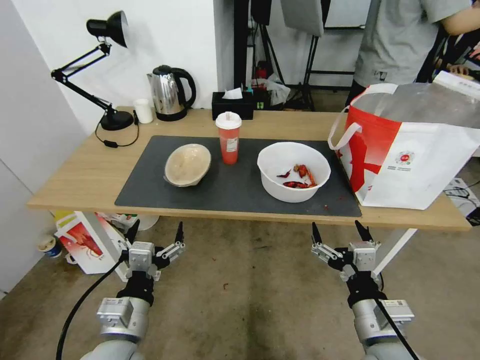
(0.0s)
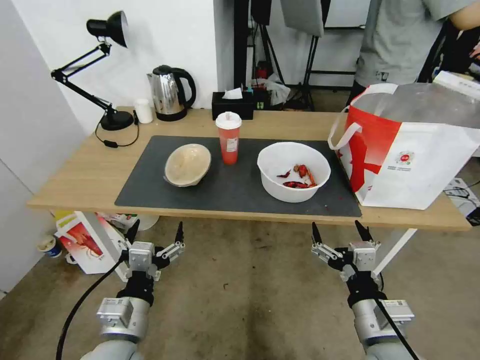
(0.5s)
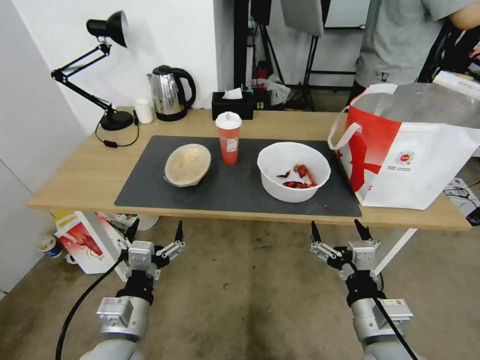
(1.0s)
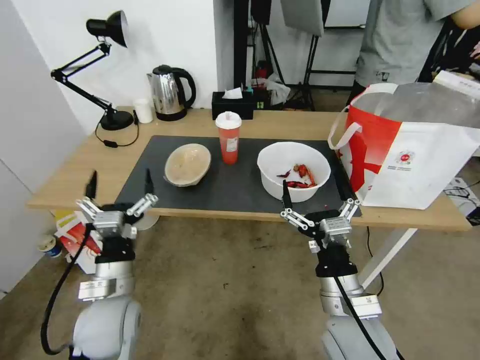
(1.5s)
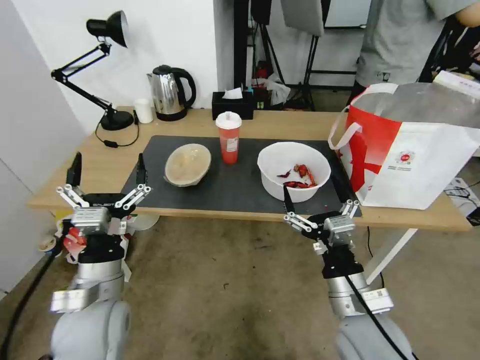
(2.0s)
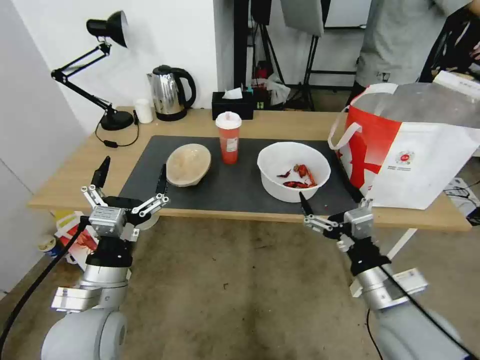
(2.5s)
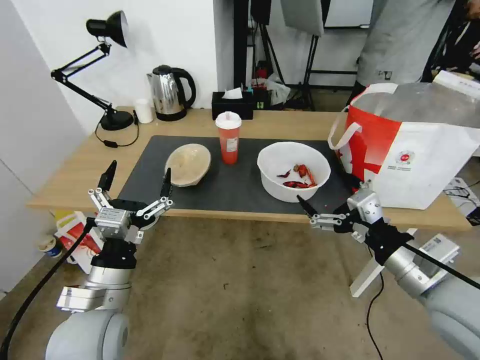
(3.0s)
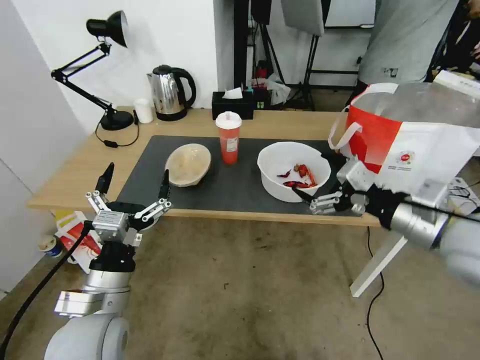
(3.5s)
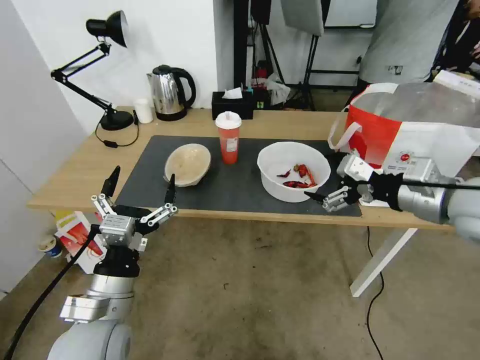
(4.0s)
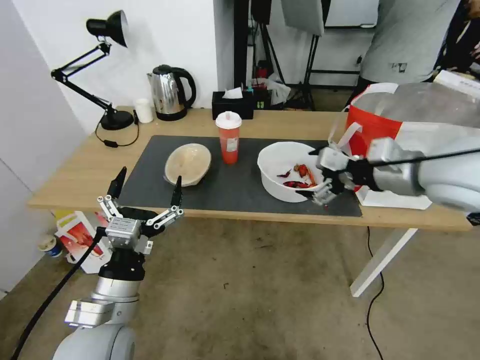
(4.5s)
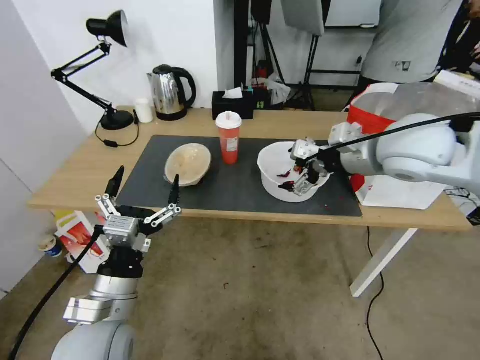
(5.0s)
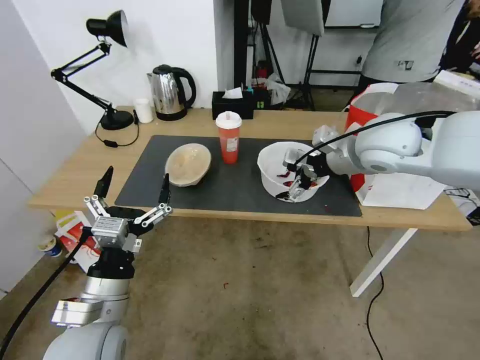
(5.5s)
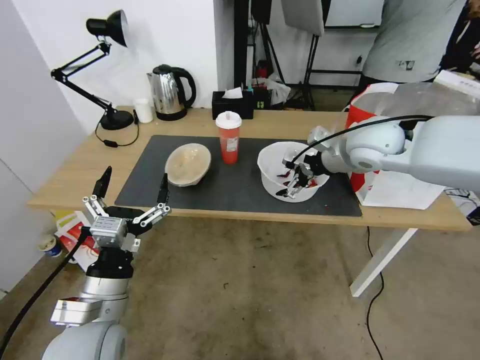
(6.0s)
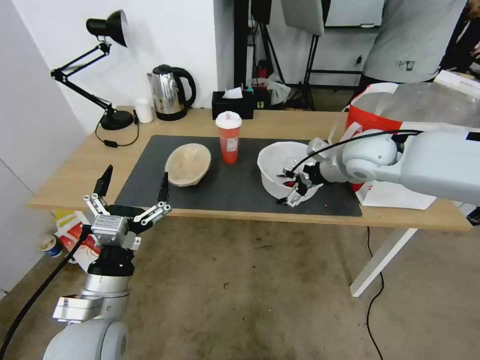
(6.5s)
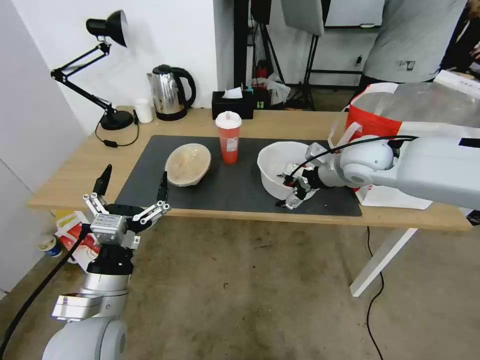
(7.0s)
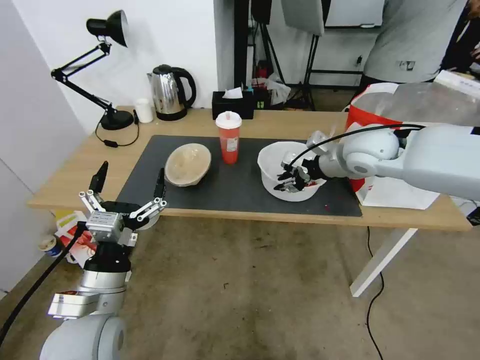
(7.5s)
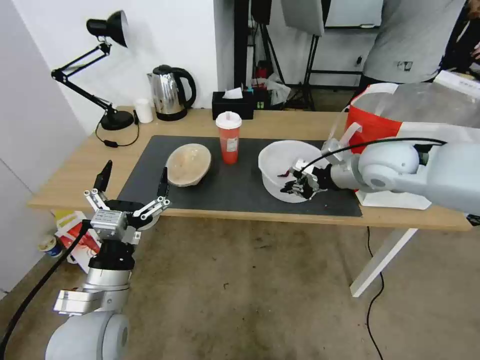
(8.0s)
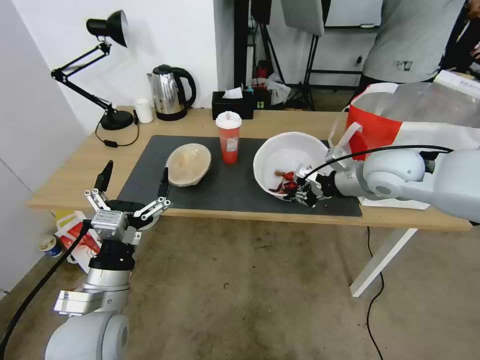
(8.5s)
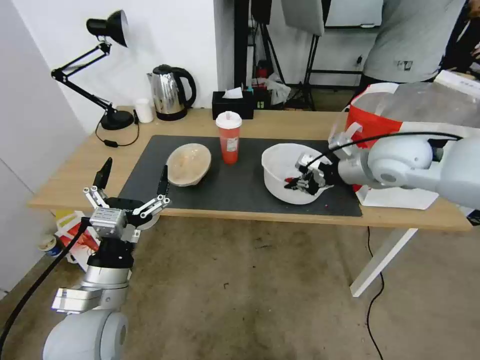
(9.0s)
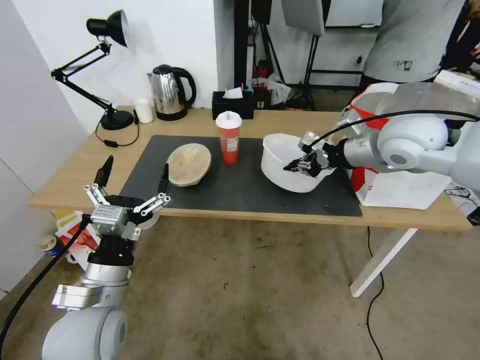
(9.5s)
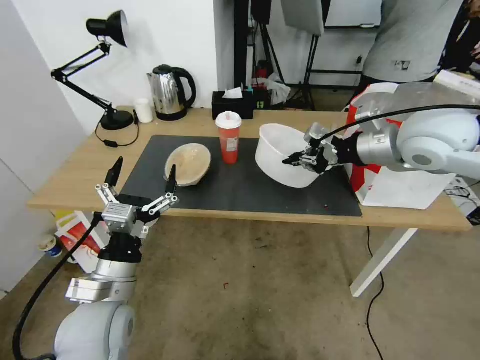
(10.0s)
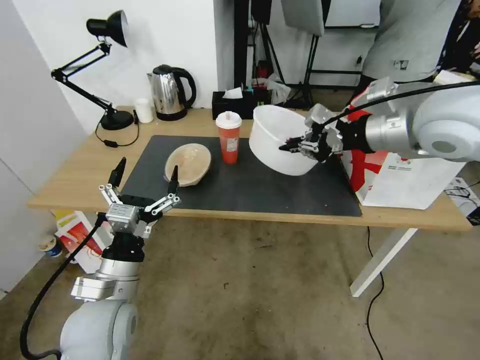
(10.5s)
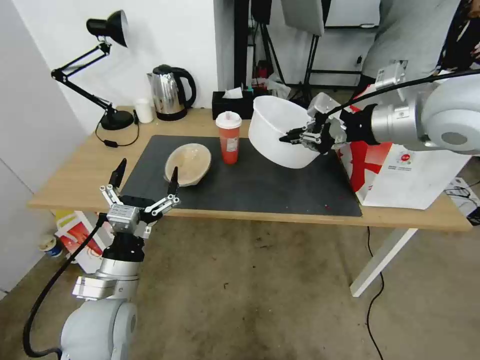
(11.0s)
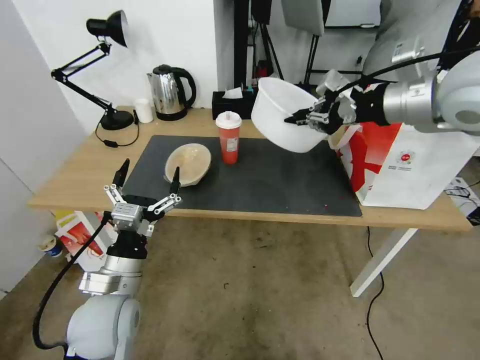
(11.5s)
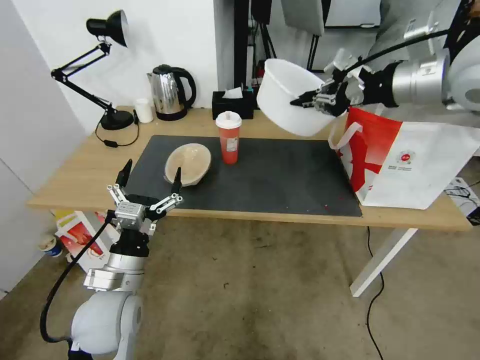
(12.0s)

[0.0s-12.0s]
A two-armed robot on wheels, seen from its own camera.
Task of the whole recording: Pick up the trash from the table and place it into the takeout bag.
2.0s to 4.0s: The right gripper shifts approximately 25 cm upward, to the right and forward.
4.0s to 6.0s: The right gripper shifts about 20 cm forward and to the left.
6.0s to 8.0s: The right gripper closes.
8.0s to 10.0s: The right gripper travels upward by roughly 10 cm.
10.0s to 12.0s: The right gripper goes about 10 cm upward.

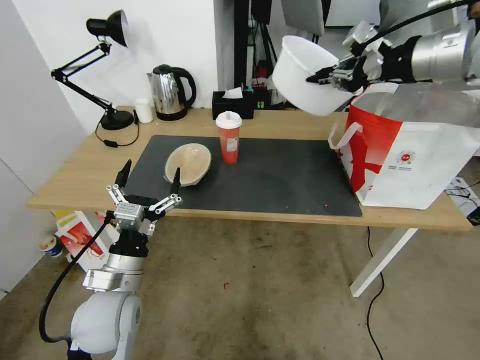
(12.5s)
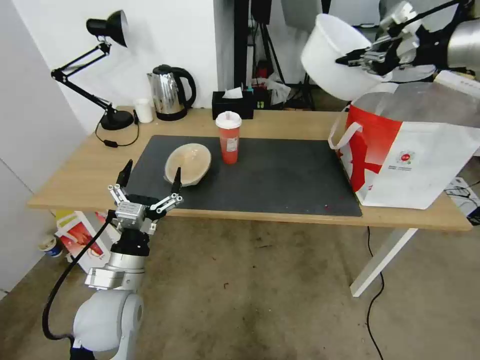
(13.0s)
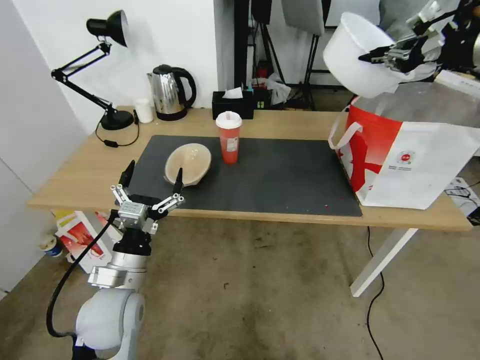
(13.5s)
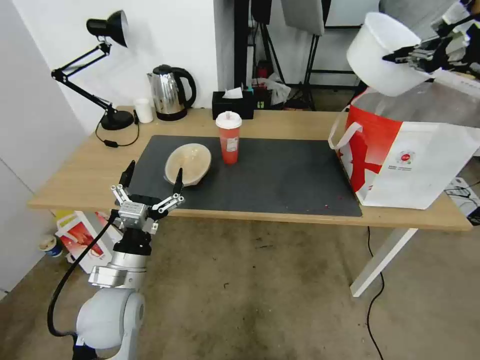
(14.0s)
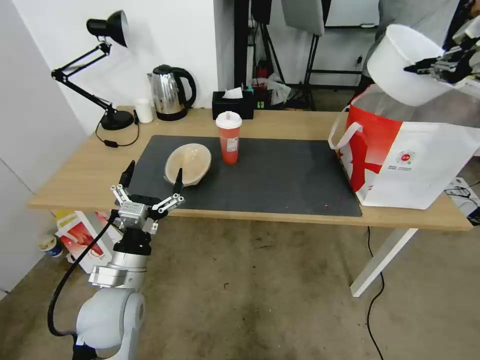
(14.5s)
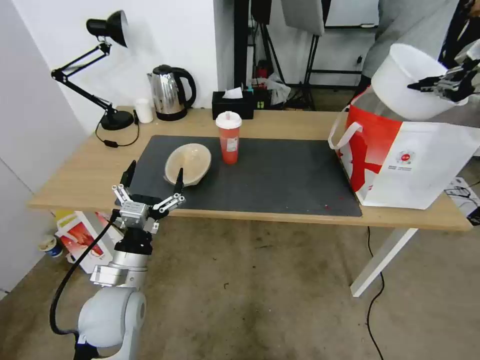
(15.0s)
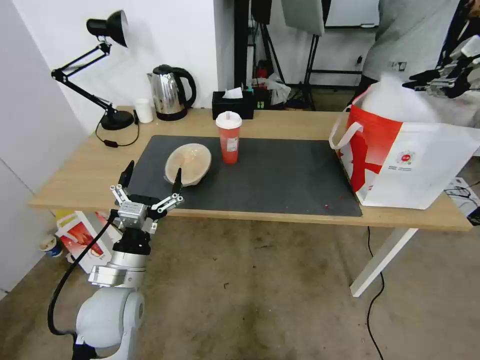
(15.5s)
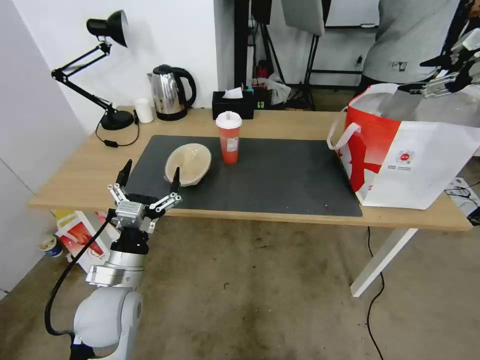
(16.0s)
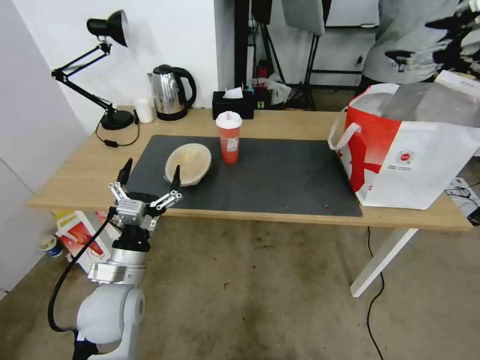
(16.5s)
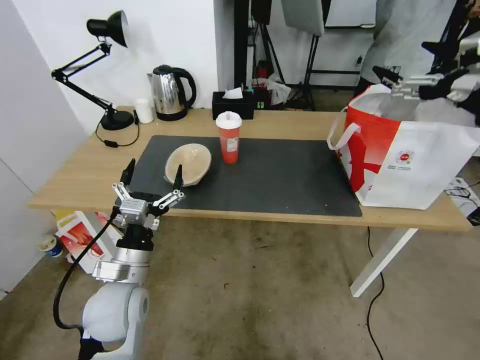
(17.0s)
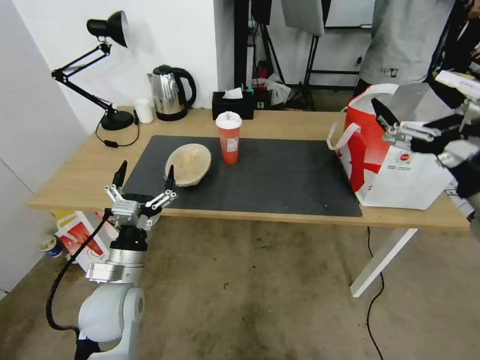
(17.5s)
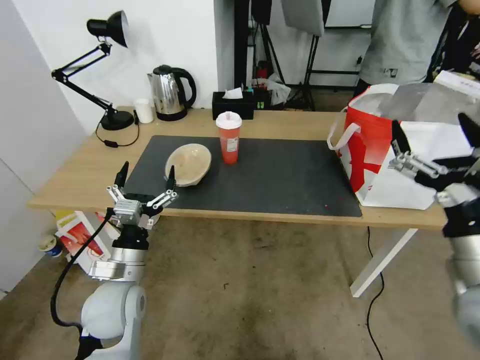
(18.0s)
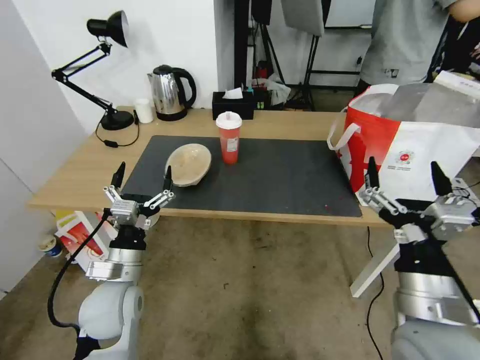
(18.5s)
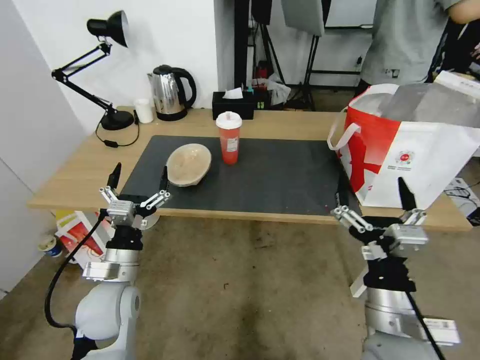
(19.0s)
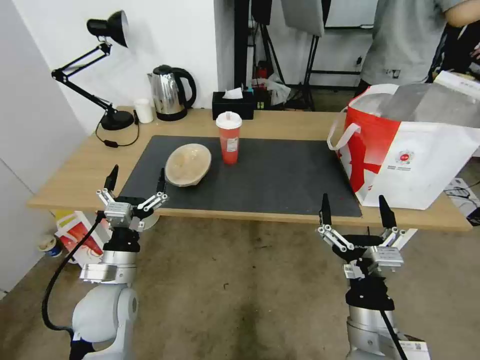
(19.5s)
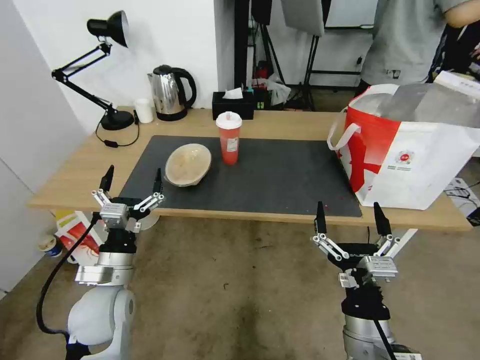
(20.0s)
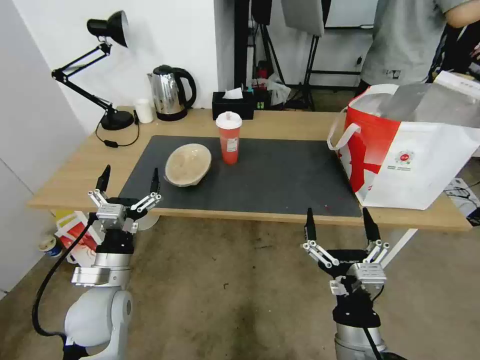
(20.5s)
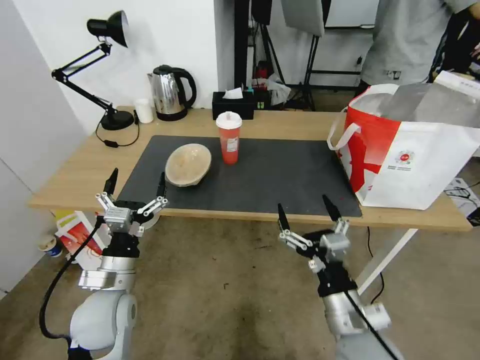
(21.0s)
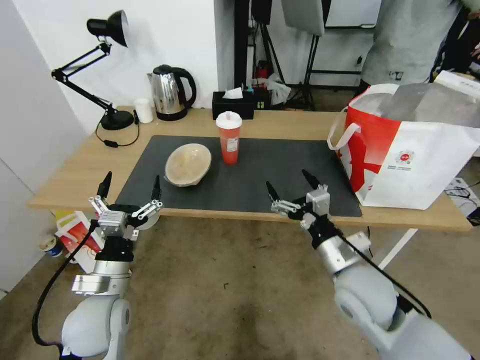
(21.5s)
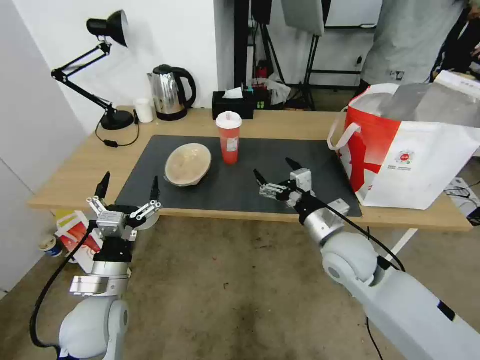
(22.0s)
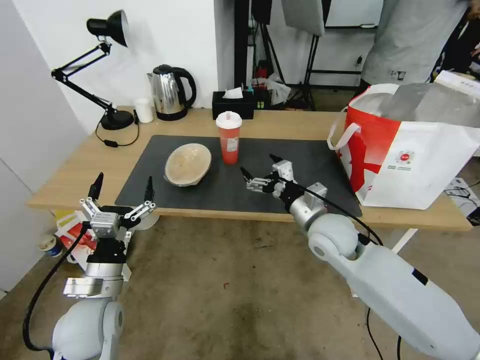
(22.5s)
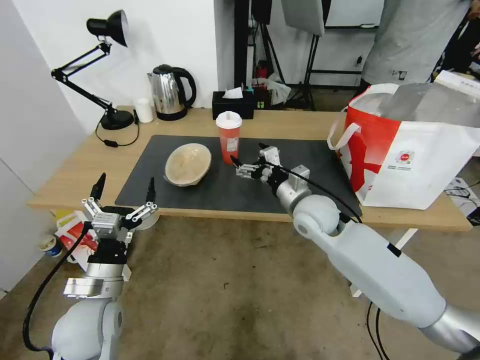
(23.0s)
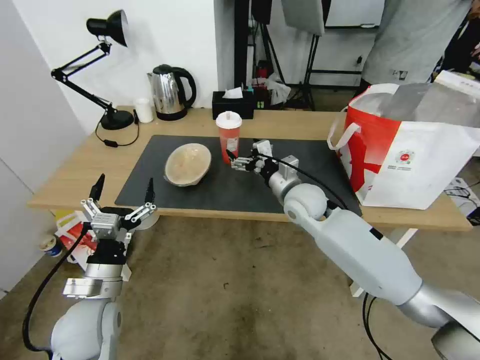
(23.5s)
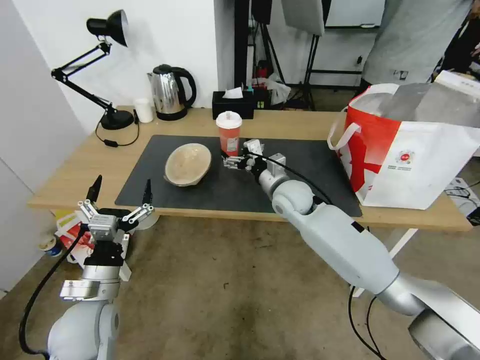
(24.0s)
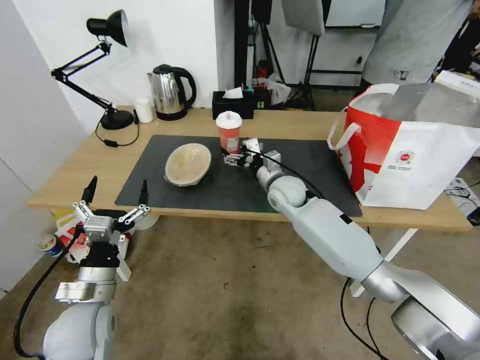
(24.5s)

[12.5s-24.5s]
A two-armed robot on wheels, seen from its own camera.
Task of the whole recording: Pick up the trash from the table and place it into the takeout bag.
12.5s to 14.5s: The right gripper moves to the right, some 20 cm.
14.5s to 16.5s: The right gripper opens up.
16.5s to 18.5s: The right gripper heads downward, backward and to the left, covering roughly 40 cm.
18.5s to 20.5s: The right gripper travels downward and to the left by roughly 10 cm.
20.5s to 22.5s: The right gripper heads forward, covering about 25 cm.
22.5s to 24.5s: The right gripper moves forward and to the left, approximately 15 cm.

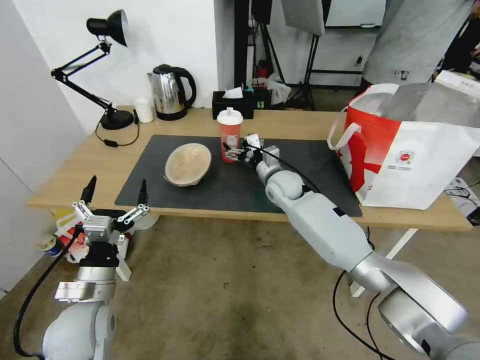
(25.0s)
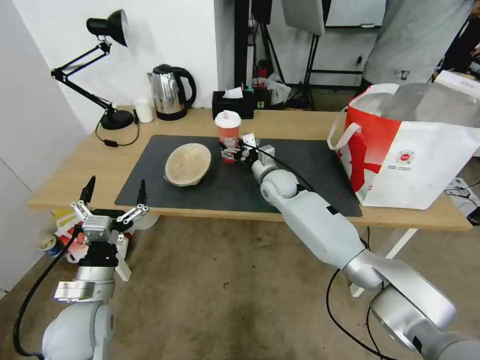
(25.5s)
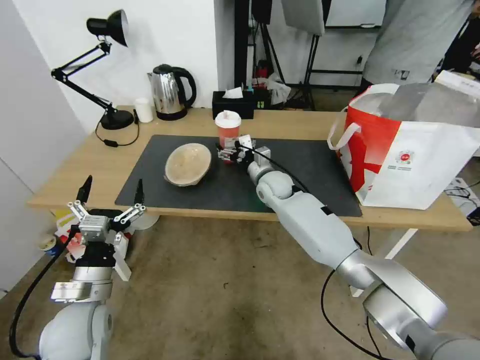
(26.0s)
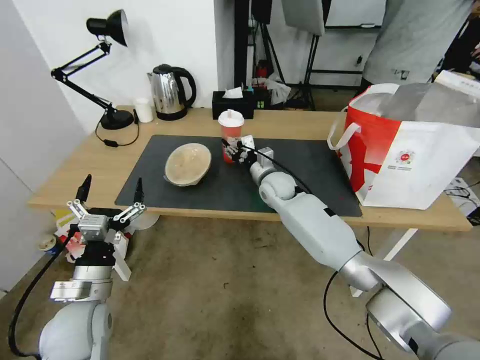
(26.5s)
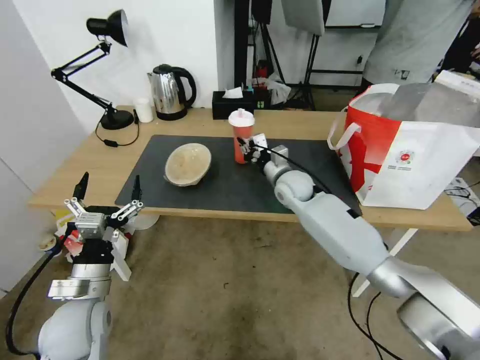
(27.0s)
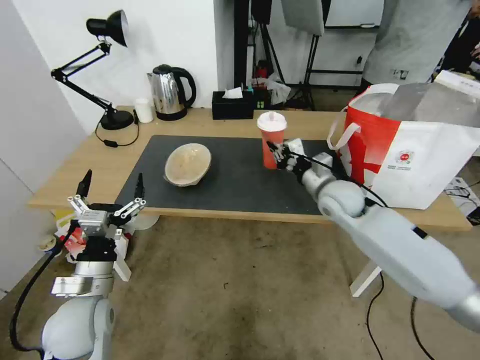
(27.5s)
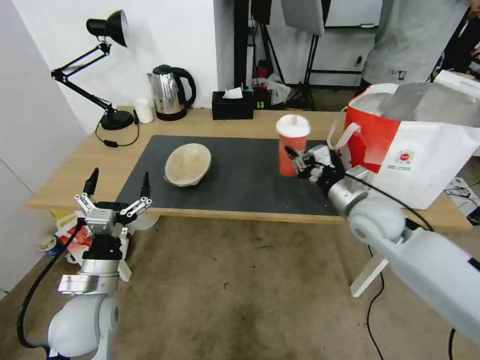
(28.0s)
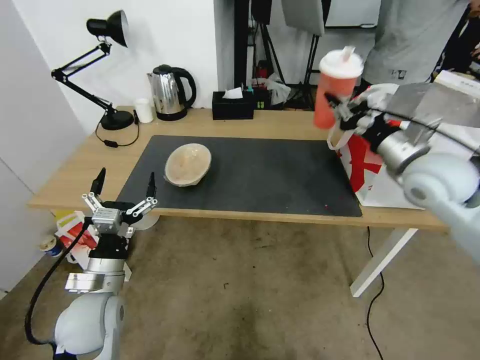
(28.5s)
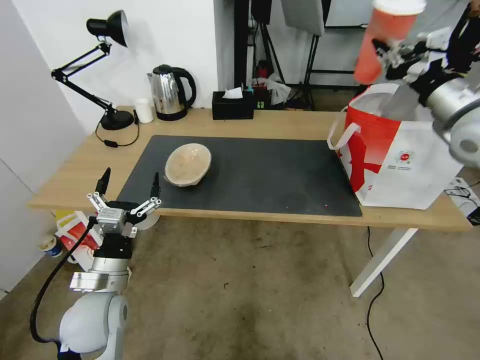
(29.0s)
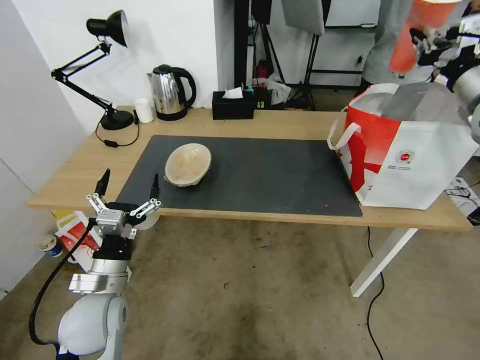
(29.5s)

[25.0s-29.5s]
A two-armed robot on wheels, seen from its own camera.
Task of the whole recording: Pick up the trash from the table and place it into the takeout bag.
25.0s to 27.0s: The right gripper closes.
27.0s to 29.5s: The right gripper is displaced to the right and upward by some 40 cm.
